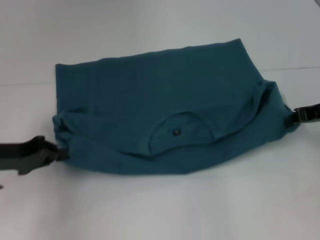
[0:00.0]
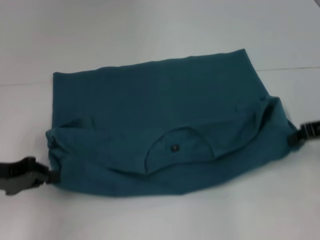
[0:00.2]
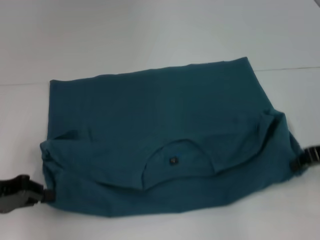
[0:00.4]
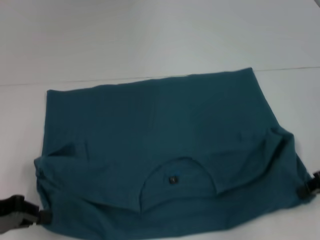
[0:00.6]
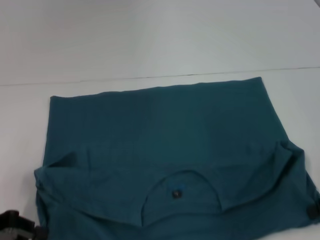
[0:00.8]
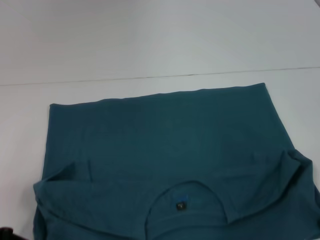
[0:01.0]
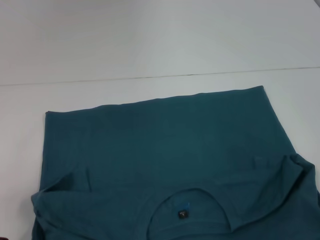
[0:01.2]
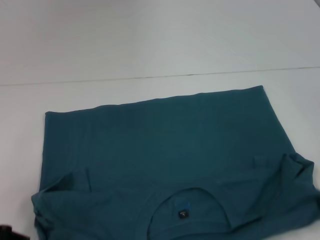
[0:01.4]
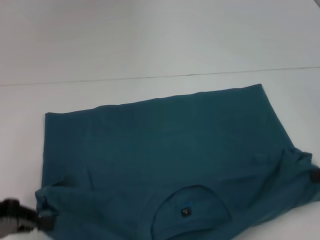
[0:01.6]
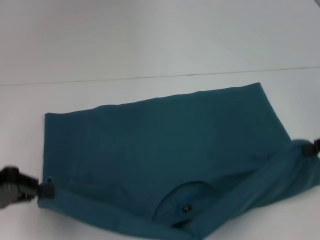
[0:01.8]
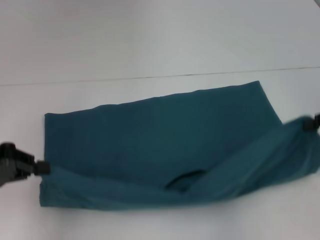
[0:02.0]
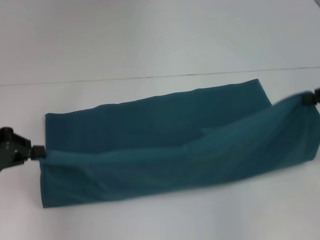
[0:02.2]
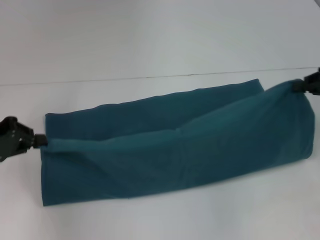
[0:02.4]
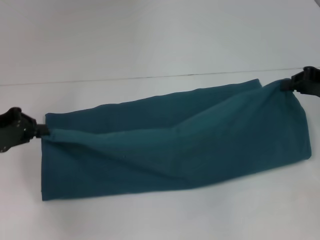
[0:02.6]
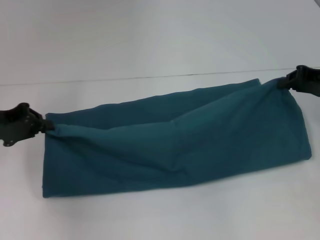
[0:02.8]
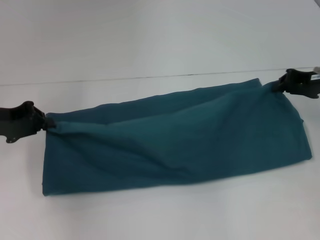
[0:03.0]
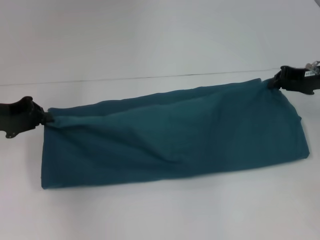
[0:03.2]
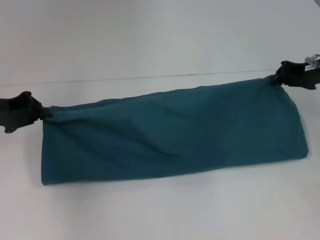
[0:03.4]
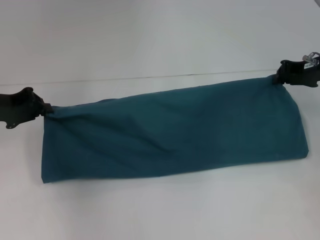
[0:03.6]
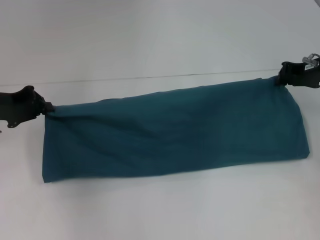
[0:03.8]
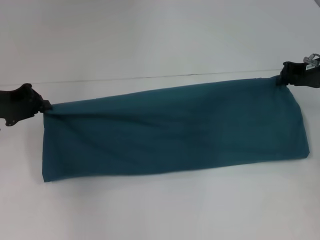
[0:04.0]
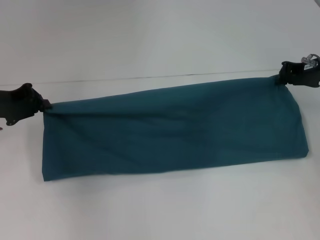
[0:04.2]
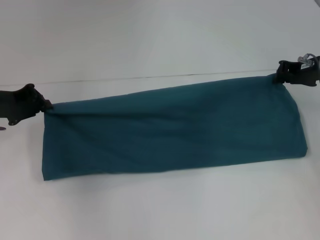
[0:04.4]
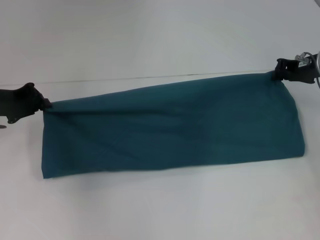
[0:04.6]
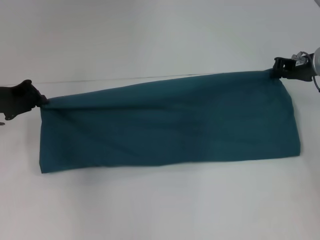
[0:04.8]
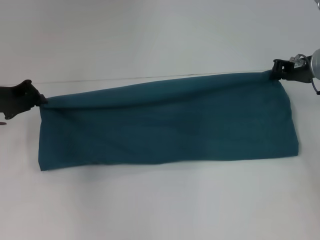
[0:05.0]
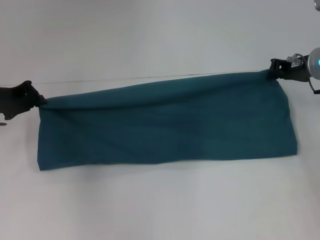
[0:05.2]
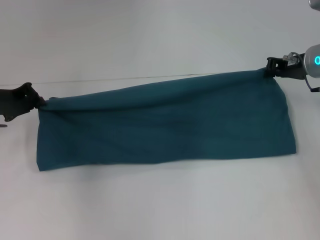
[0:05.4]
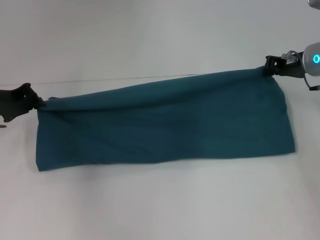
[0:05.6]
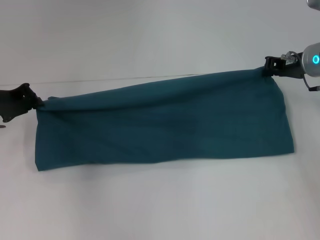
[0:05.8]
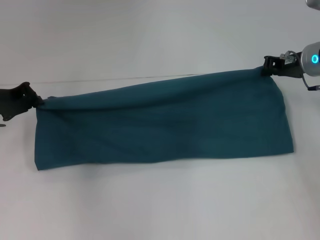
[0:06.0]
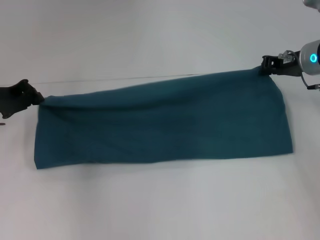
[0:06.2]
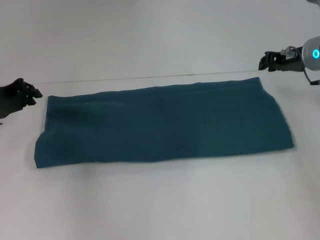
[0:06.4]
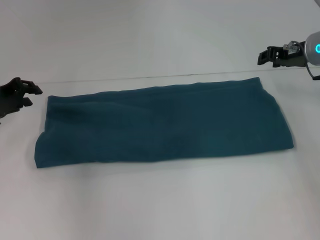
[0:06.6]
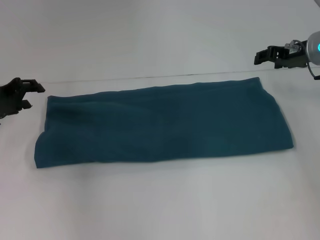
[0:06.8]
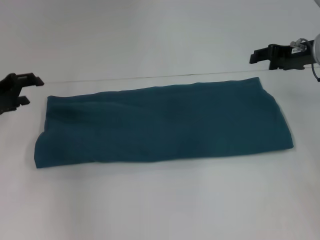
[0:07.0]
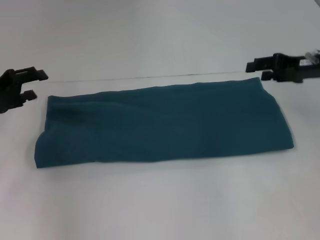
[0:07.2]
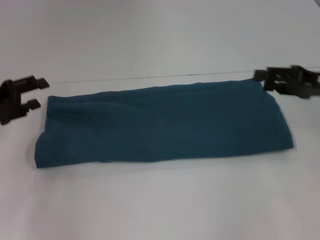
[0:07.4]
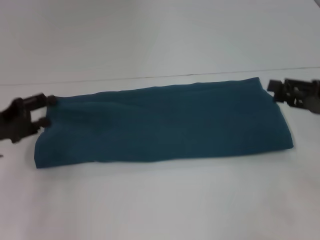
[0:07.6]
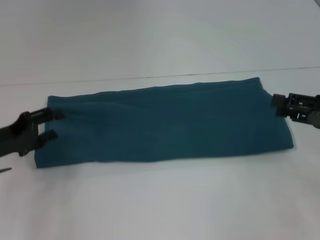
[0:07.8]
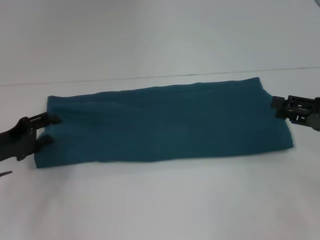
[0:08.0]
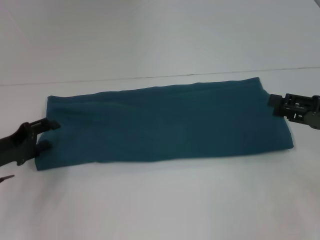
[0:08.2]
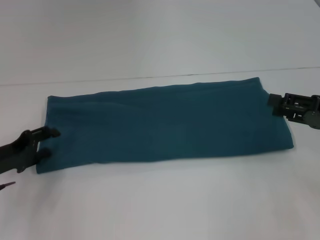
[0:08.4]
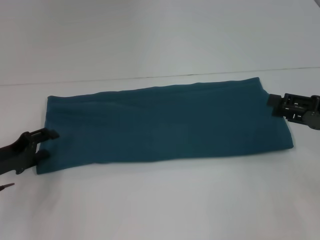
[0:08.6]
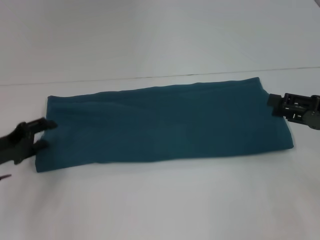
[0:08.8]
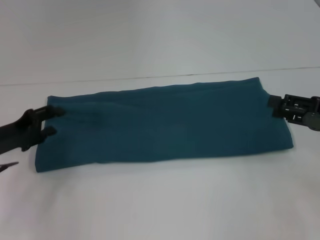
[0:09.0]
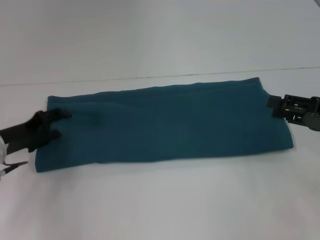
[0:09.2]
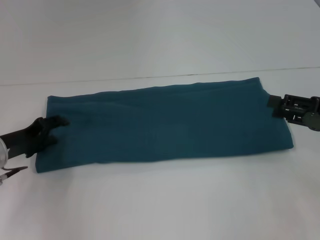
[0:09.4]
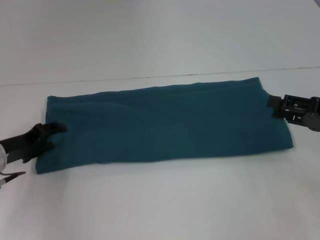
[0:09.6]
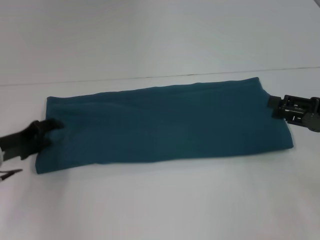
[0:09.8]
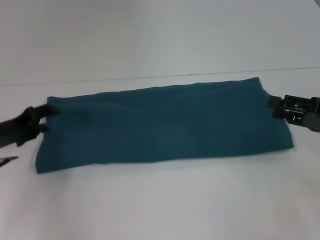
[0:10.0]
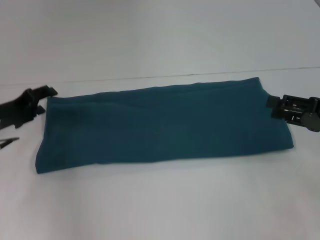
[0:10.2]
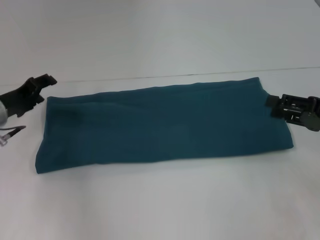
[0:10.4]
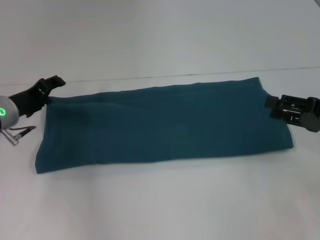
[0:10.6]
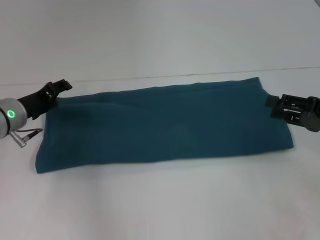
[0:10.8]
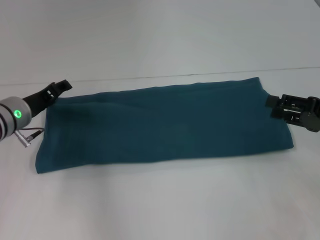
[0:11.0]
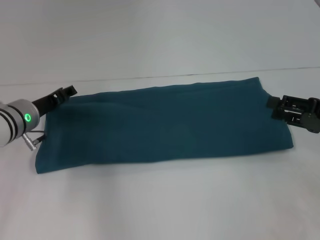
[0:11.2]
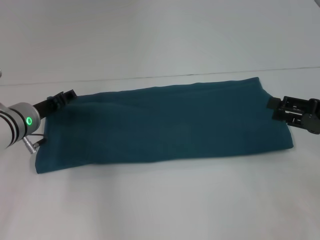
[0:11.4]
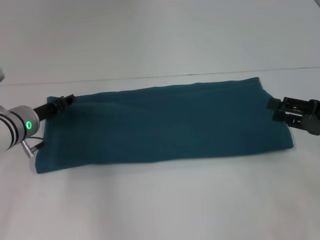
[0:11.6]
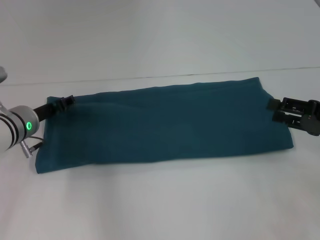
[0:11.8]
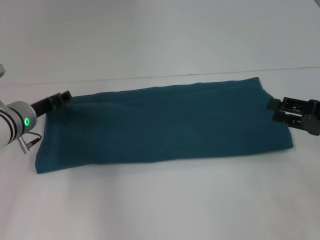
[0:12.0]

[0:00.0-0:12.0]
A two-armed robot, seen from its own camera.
Step, 0:00.6 to 0:06.4: Fold the clothes to the right.
0:00.0 to 0:01.6: The two grippers go roughly 10 cm backward.
0:01.6 to 0:03.0: The grippers both shift forward by approximately 10 cm.
0:03.0 to 0:04.4: The grippers move only a little.
0:04.4 to 0:06.0: The grippers move only a little.
0:06.0 to 0:07.6: The right gripper heads backward and to the right, covering approximately 15 cm, and opens up. Meanwhile the left gripper is displaced backward by some 10 cm, and opens its fingers.
0:07.6 to 0:09.0: The grippers make only small movements.
0:09.0 to 0:10.4: The left gripper travels forward by about 5 cm.
0:10.4 to 0:12.0: The left gripper ends up approximately 5 cm from where it was.

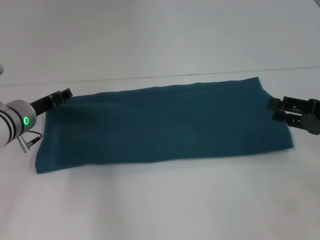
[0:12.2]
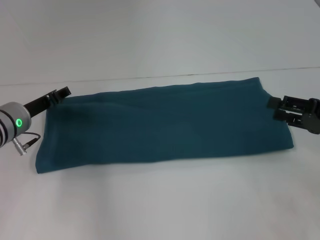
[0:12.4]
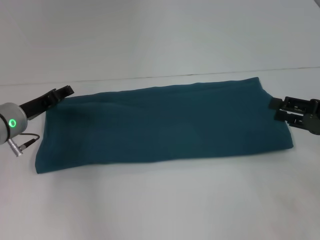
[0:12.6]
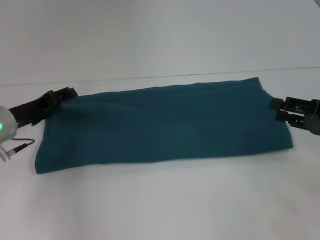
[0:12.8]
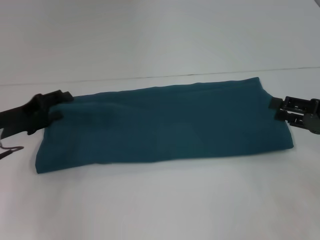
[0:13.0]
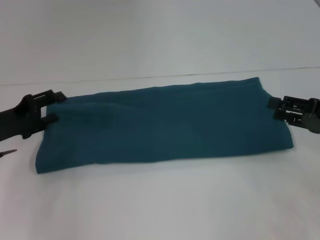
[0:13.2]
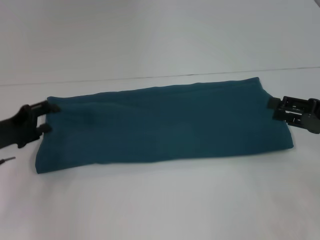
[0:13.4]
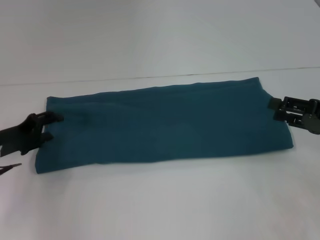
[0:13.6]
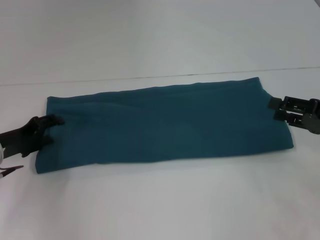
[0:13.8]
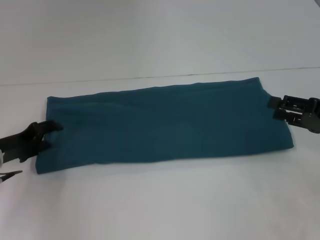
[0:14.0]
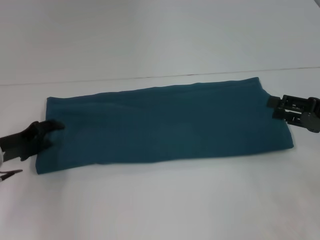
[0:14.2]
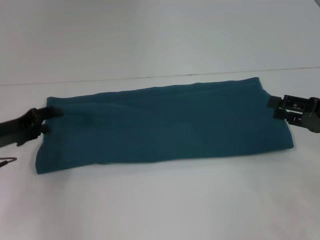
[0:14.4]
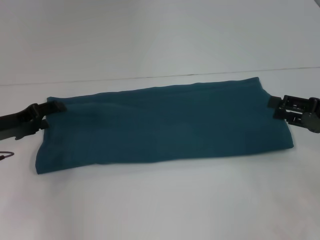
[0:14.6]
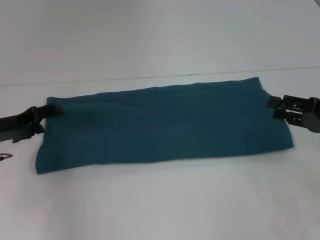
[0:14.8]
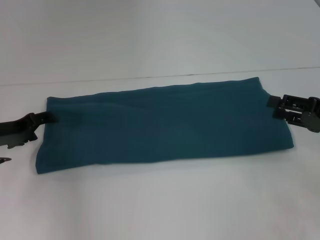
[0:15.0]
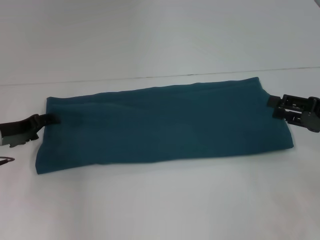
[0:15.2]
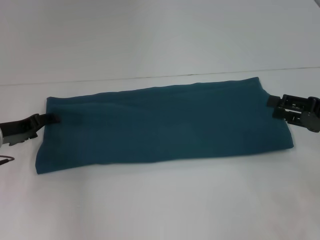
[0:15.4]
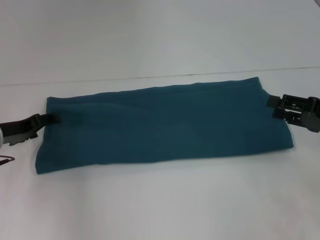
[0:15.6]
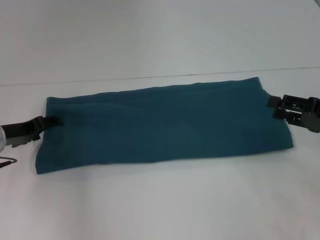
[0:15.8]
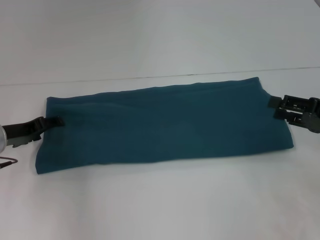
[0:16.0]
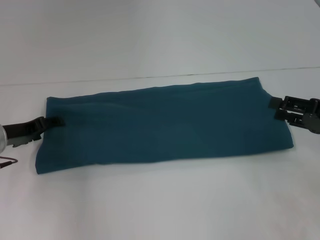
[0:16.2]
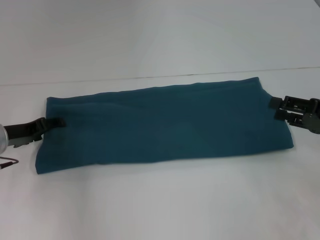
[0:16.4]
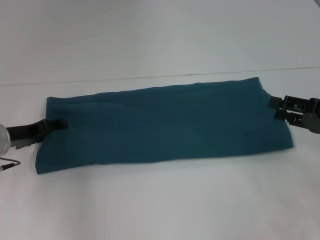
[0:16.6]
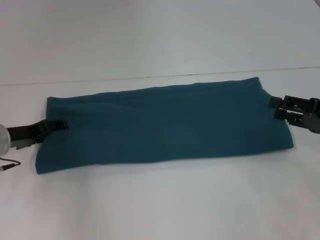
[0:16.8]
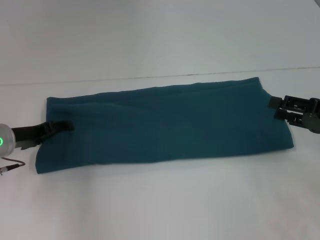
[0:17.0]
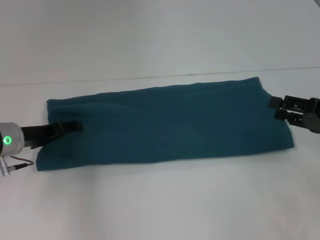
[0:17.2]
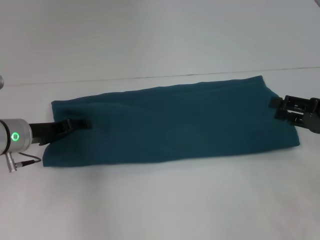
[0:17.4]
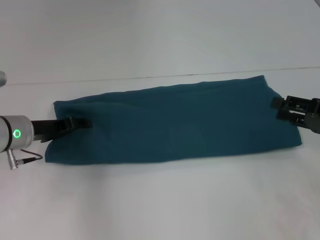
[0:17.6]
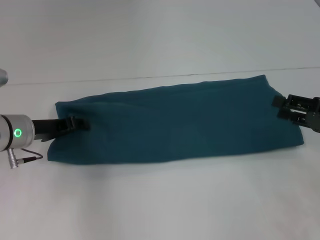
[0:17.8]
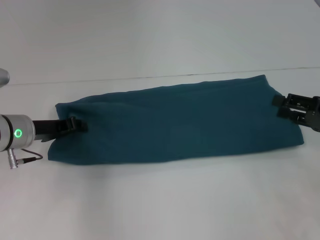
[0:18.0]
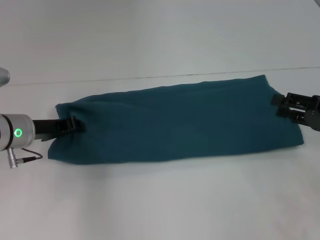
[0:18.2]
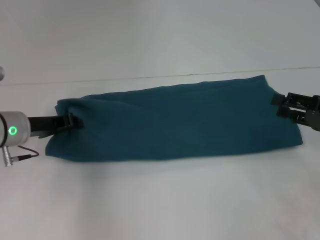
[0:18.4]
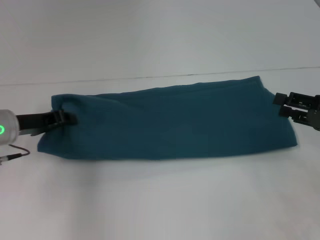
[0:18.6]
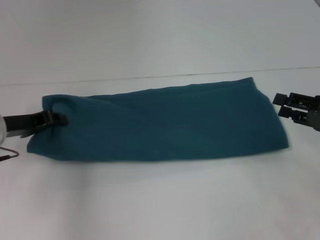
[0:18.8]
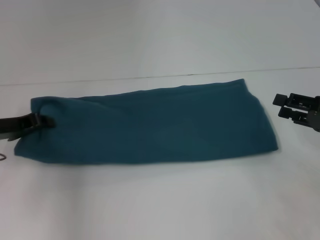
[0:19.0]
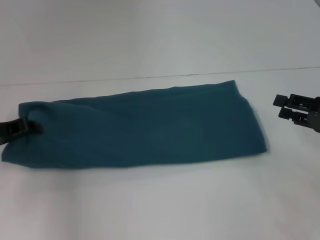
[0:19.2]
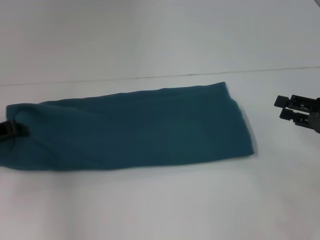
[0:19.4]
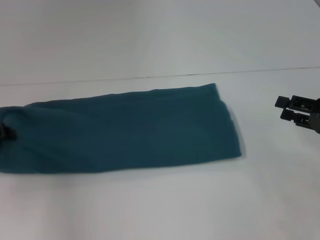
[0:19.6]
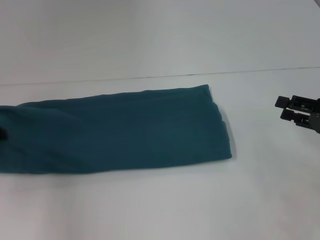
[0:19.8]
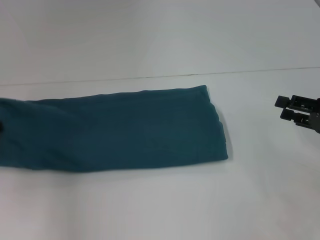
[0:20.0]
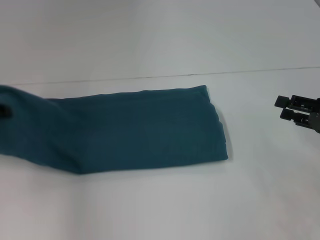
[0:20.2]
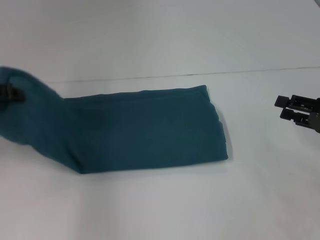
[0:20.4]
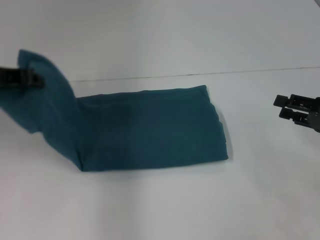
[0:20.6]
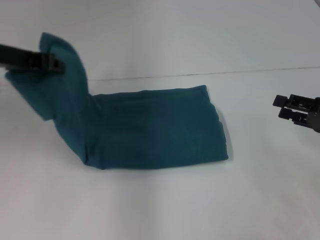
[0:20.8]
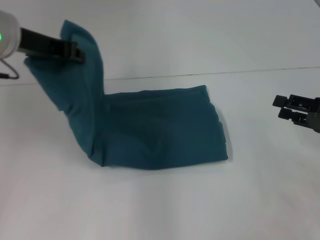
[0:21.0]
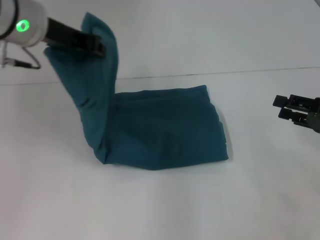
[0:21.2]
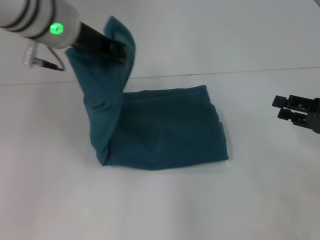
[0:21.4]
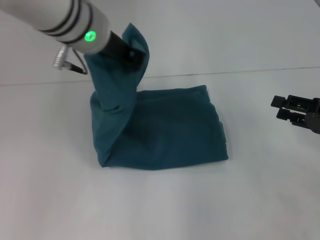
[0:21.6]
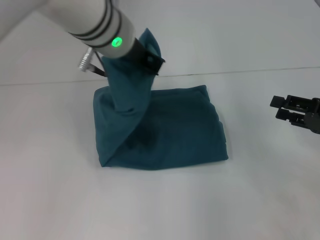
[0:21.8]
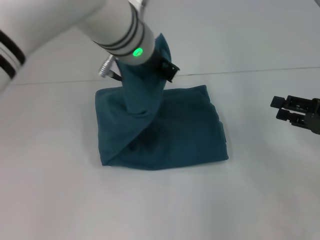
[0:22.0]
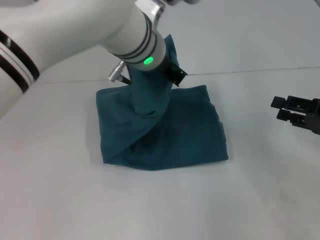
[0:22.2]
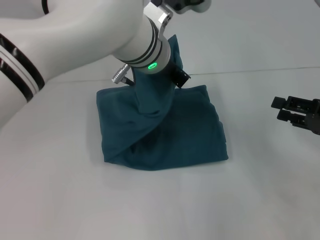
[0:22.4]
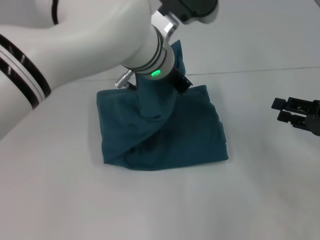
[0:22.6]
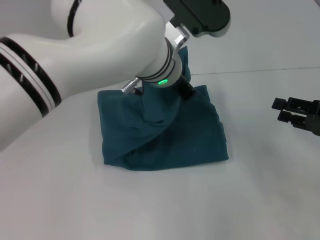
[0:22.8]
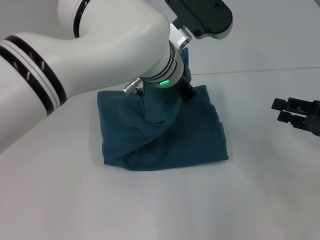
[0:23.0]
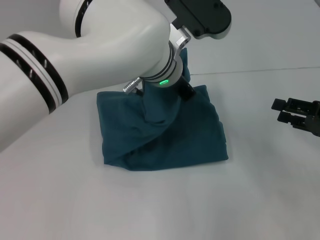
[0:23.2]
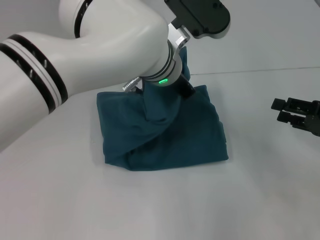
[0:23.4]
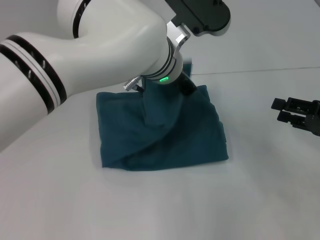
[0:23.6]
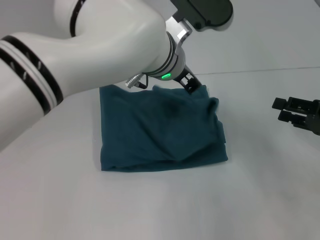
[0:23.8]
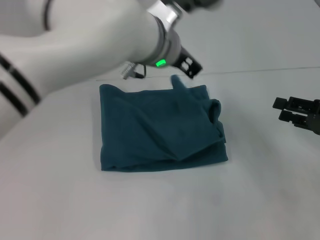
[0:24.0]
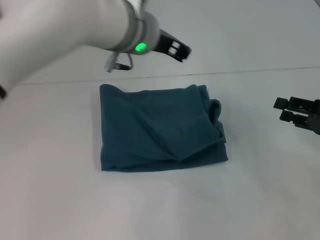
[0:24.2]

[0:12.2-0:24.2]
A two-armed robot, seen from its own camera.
Step, 0:12.2 to 0:24.0: Fold the clothes to the left.
0:12.2 to 0:13.8: The left gripper travels to the left and backward by approximately 10 cm.
0:13.8 to 0:15.2: The grippers move only a little.
0:15.2 to 0:16.6: The grippers stay close to where they were, moving slightly.
0:16.6 to 0:18.2: The left gripper closes.
0:18.2 to 0:19.8: The left gripper heads to the left, covering about 10 cm.
0:19.8 to 0:21.2: The left gripper moves to the right and upward, about 25 cm.
0:21.2 to 0:22.6: The left gripper shifts some 15 cm to the right and downward.
